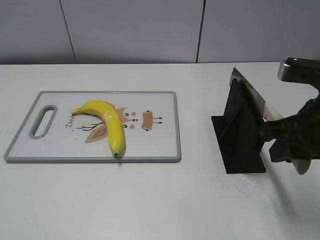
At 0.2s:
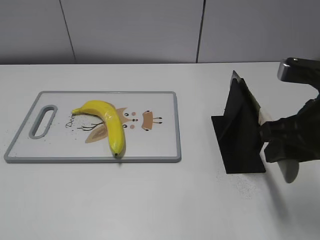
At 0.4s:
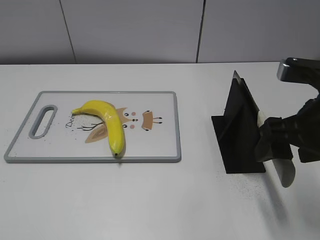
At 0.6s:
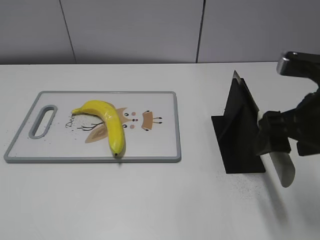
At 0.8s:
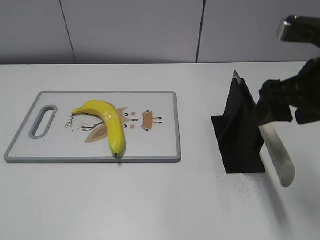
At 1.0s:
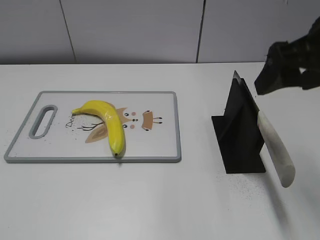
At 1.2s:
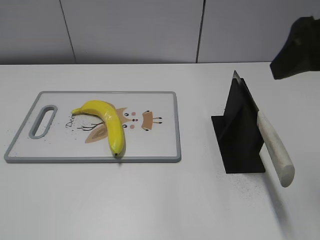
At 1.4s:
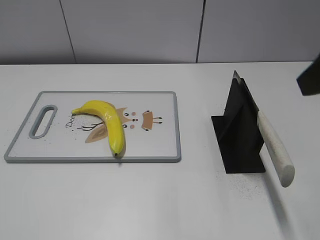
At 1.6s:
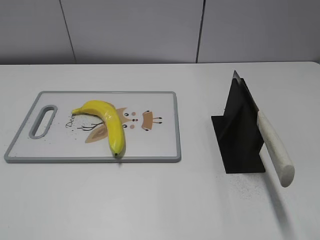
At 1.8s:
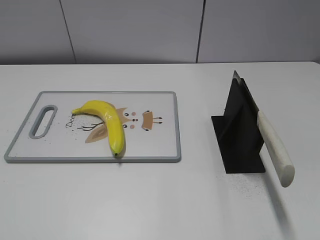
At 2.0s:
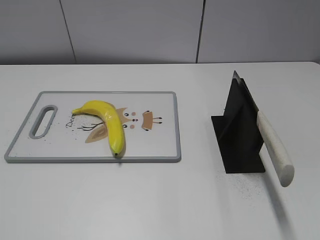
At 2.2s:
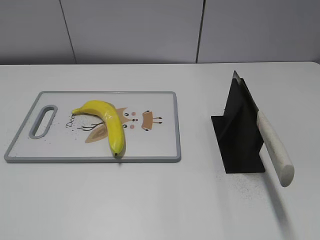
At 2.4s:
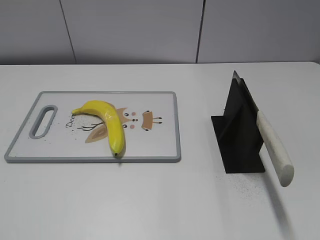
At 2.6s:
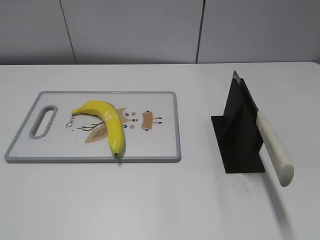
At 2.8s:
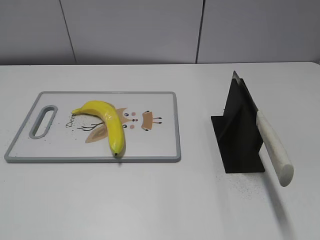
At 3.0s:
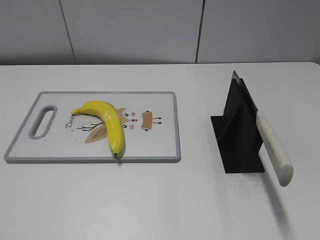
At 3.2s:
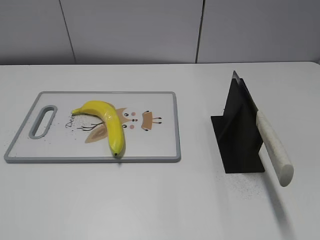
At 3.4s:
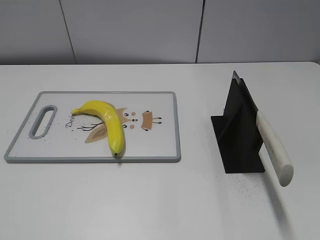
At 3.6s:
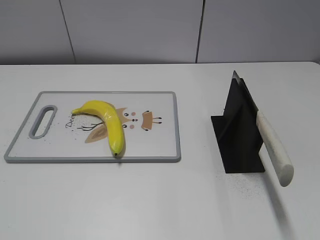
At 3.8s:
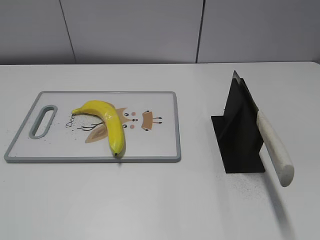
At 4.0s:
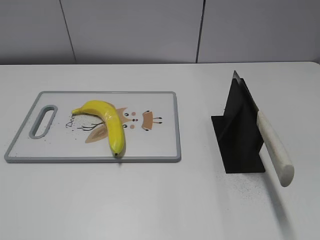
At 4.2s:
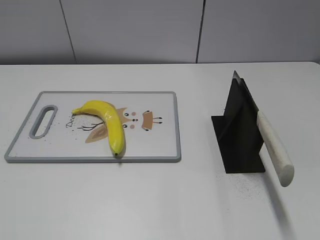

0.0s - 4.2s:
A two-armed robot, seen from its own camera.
Task of the whole recording: cut plastic banana.
Step, 0.0s - 4.2s: Place the knife on the storage rack with your right hand.
0.0s - 1.4s: The right gripper heads upward, covering roughly 15 cm, and opens.
1.4s - 2.8s: The right gripper heads backward, to the right and downward, covering approximately 20 cm.
